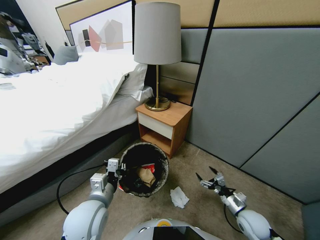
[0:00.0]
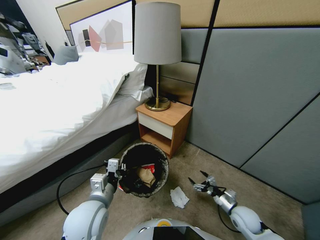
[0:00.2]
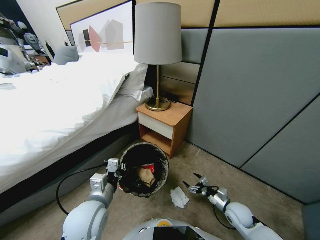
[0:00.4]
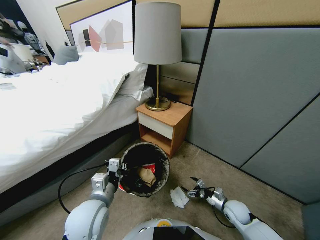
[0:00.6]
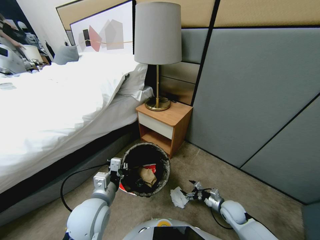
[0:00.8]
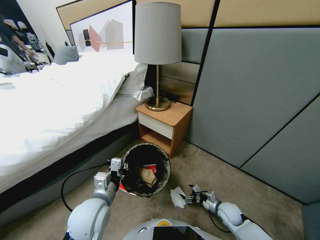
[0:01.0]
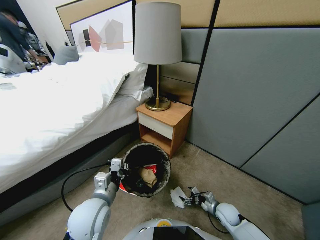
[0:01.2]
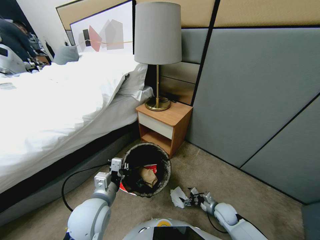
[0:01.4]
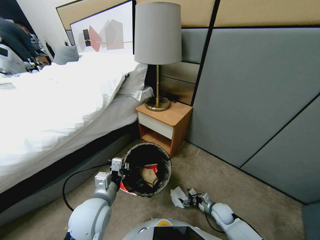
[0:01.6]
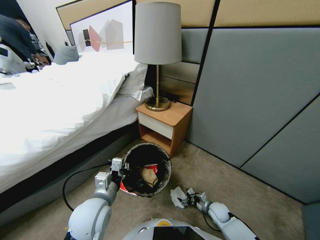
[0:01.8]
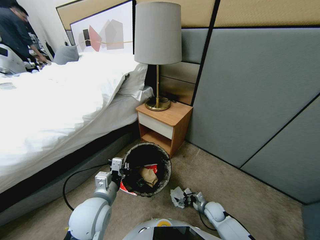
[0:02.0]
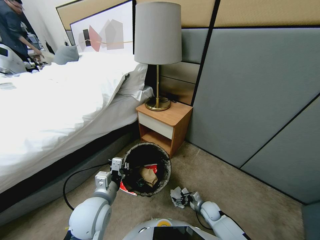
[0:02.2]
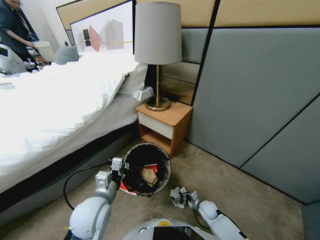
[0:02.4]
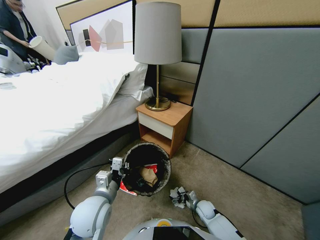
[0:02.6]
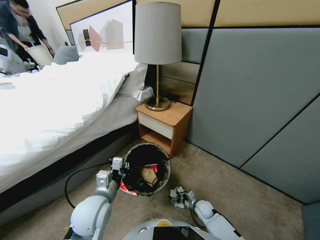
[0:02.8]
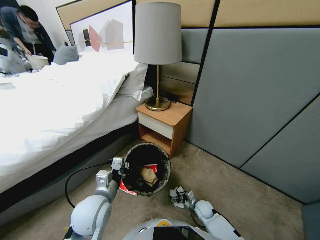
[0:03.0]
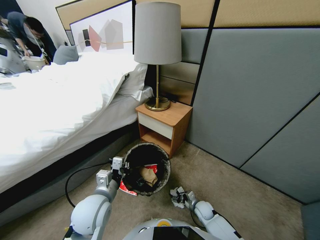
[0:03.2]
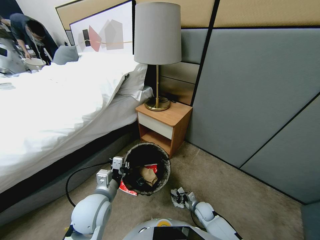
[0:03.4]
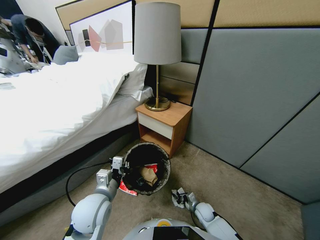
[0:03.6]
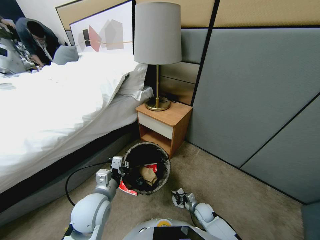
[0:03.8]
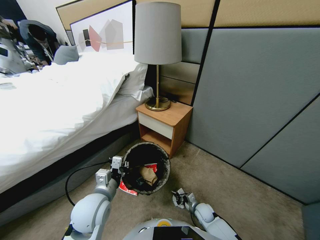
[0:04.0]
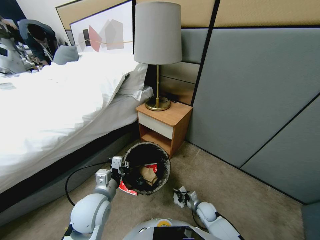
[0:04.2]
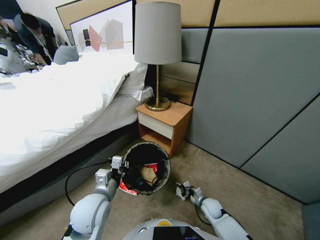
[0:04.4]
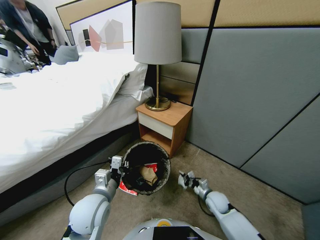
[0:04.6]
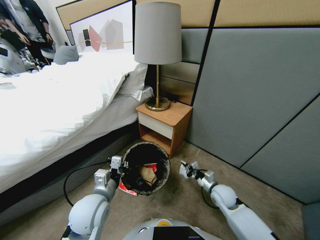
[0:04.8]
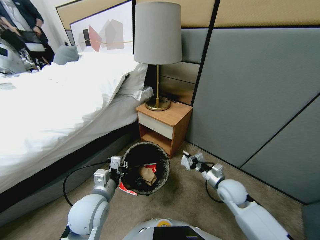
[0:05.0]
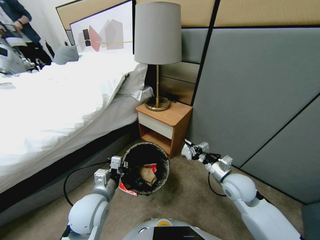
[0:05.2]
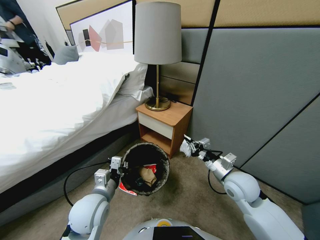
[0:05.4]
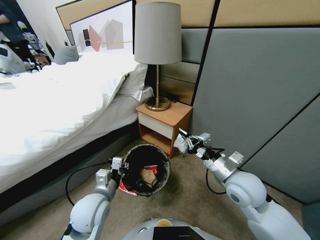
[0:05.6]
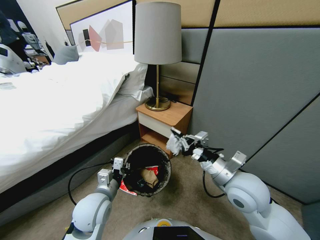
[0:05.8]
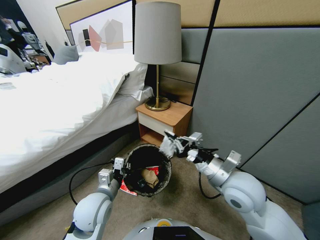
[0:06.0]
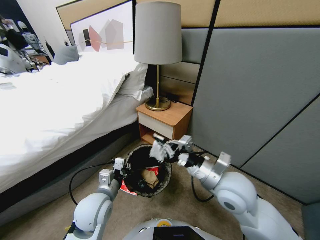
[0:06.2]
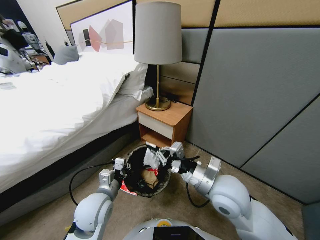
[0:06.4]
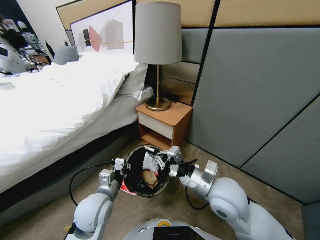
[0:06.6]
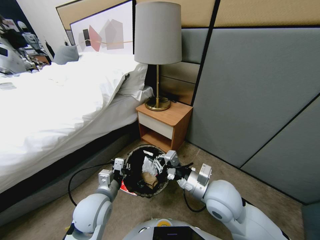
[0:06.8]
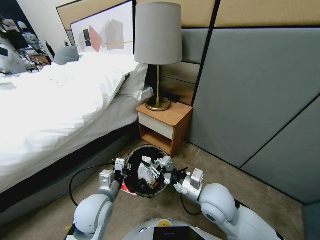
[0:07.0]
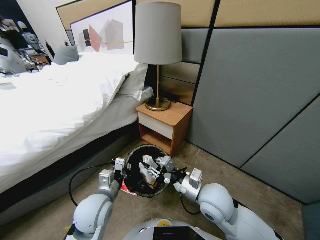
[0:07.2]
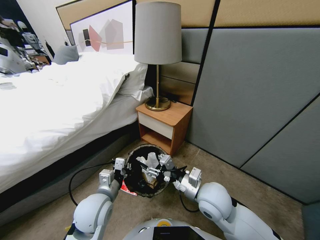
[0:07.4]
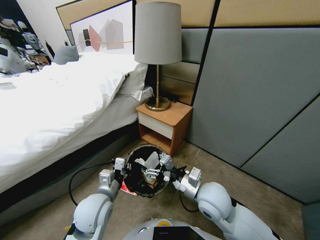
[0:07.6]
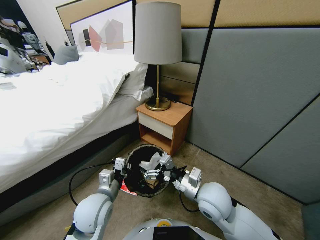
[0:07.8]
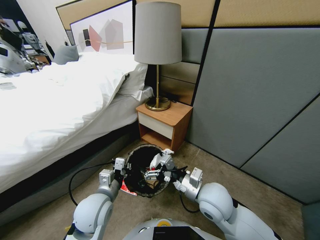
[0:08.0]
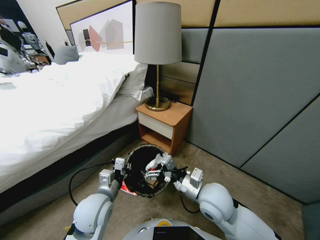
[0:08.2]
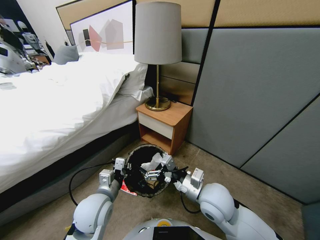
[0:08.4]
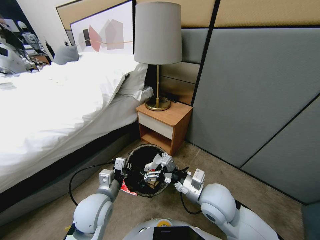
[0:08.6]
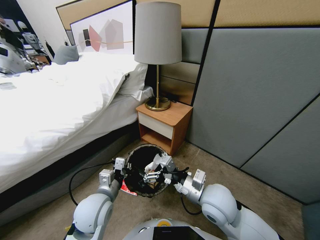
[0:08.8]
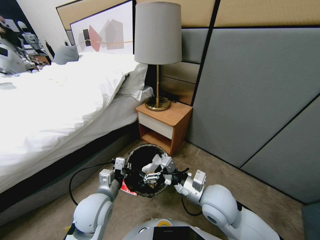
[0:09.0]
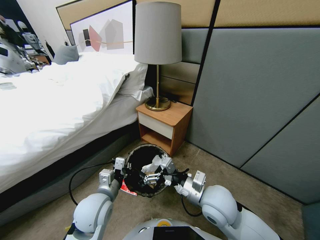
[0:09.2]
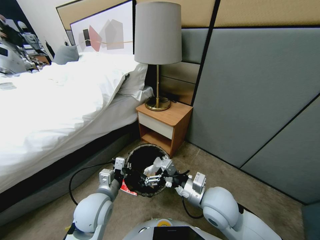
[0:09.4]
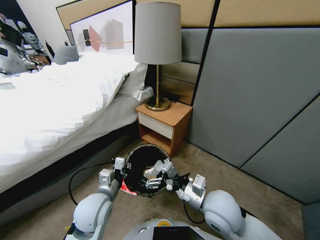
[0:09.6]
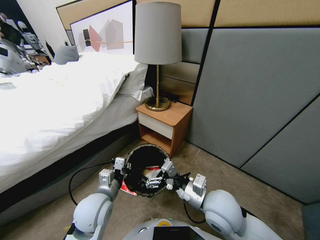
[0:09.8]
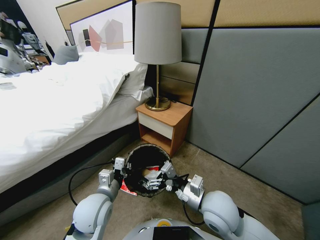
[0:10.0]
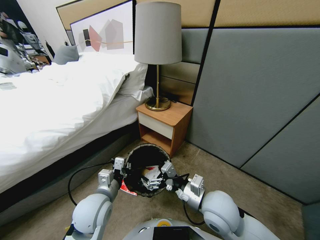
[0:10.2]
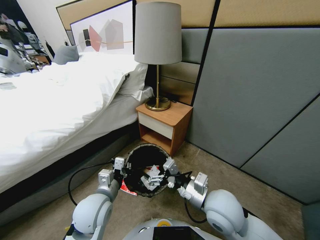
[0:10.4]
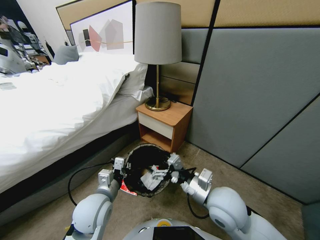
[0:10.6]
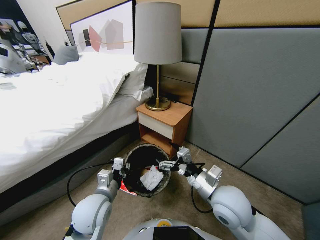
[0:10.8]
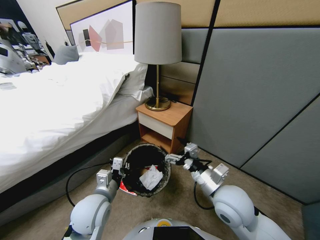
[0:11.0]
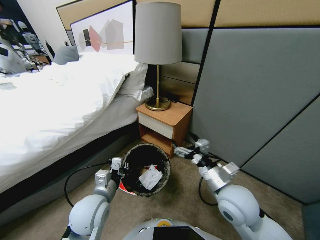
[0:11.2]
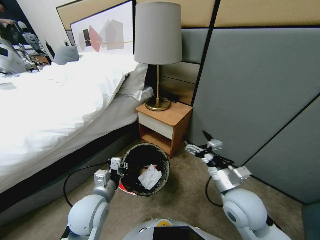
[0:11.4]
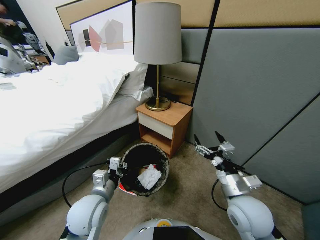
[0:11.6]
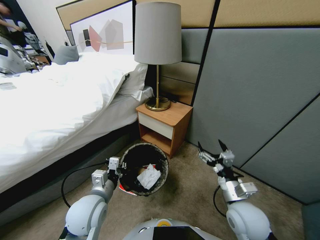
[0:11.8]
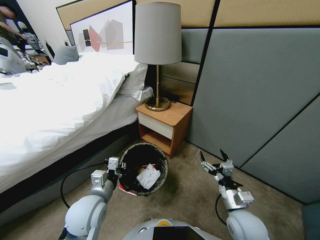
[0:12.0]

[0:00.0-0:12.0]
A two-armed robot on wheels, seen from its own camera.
Task of the whole recording: Pick up the trash bin, then pick up the garbage from the floor and place it into the trash bin.
0:00.0 to 0:01.6: The right gripper shifts approximately 10 cm downward.
0:01.6 to 0:03.0: The right gripper shifts some 5 cm to the left.
0:03.0 to 0:04.4: The right gripper heads upward, covering roughly 10 cm, and closes its fingers.
0:04.4 to 0:06.0: The right gripper shifts roughly 30 cm upward.
0:06.0 to 0:07.6: The right gripper goes approximately 10 cm downward and to the left, and opens its fingers.
0:07.6 to 0:10.4: There are only small adjustments of the grippers.
0:10.4 to 0:12.0: The right gripper moves downward and to the right, about 15 cm.

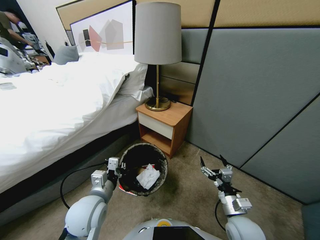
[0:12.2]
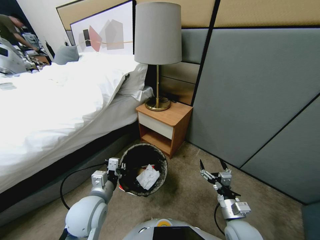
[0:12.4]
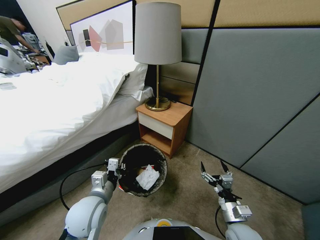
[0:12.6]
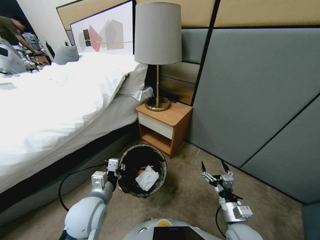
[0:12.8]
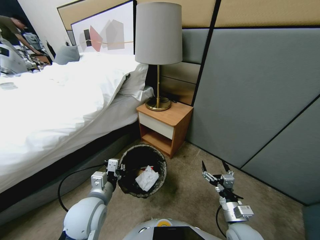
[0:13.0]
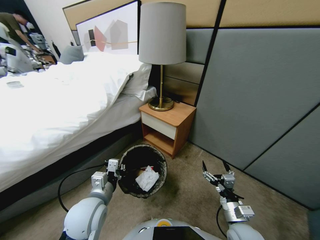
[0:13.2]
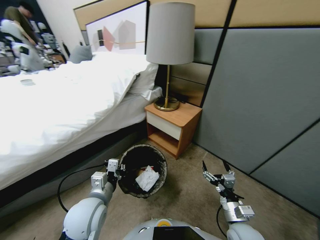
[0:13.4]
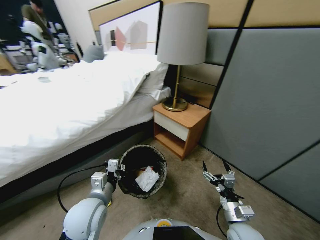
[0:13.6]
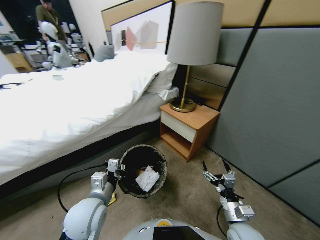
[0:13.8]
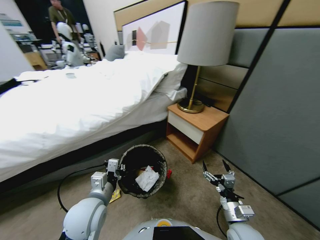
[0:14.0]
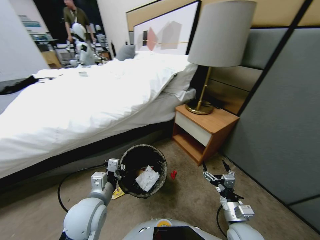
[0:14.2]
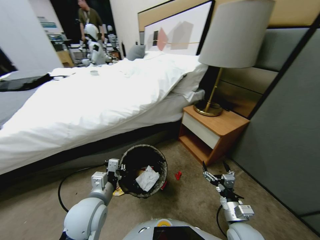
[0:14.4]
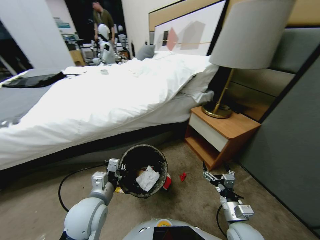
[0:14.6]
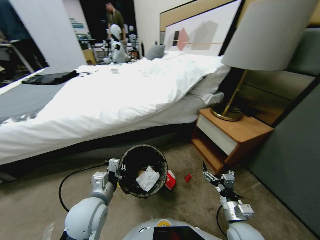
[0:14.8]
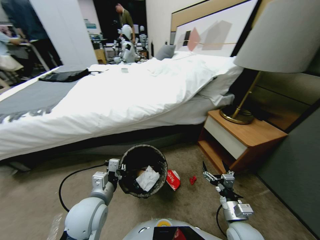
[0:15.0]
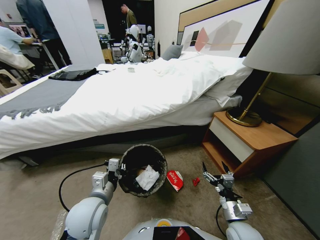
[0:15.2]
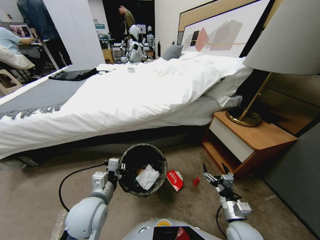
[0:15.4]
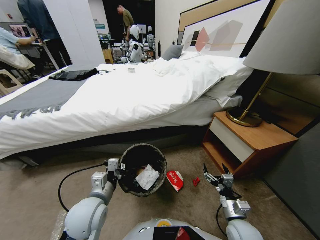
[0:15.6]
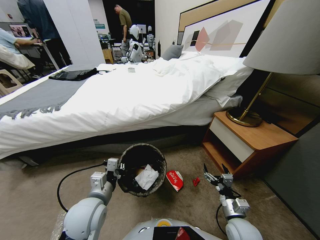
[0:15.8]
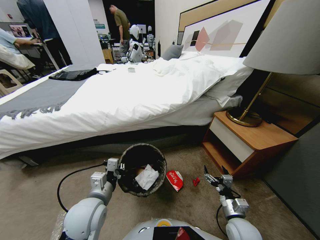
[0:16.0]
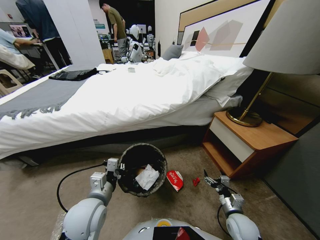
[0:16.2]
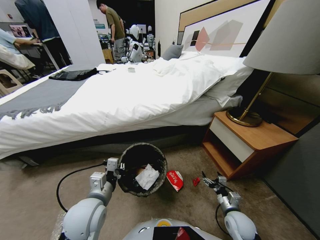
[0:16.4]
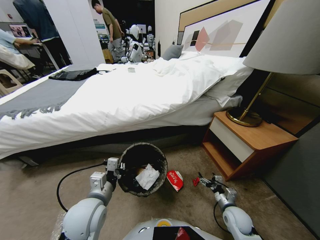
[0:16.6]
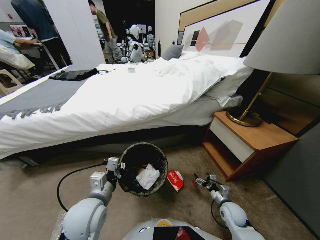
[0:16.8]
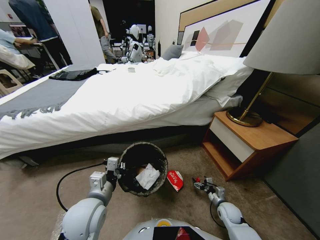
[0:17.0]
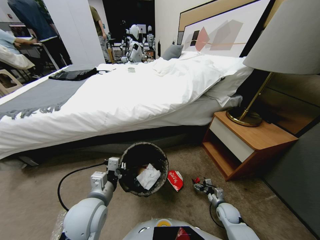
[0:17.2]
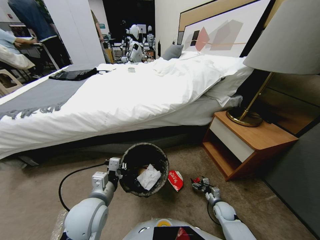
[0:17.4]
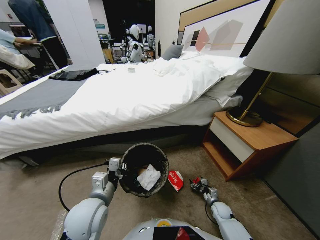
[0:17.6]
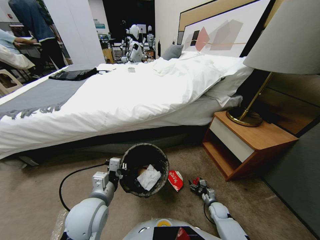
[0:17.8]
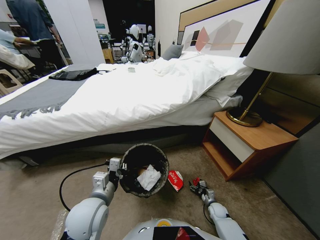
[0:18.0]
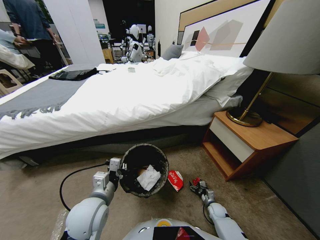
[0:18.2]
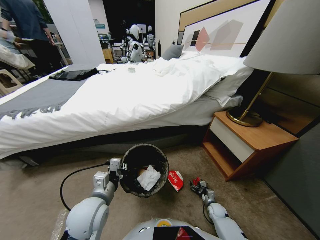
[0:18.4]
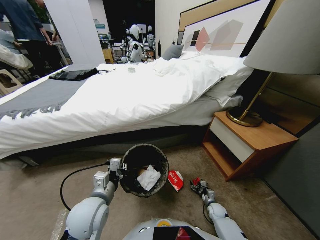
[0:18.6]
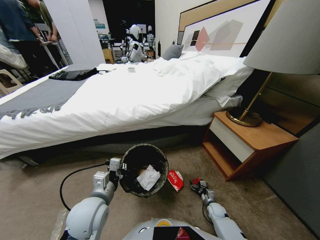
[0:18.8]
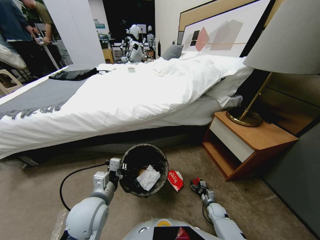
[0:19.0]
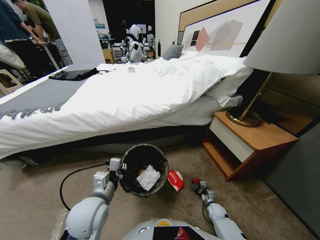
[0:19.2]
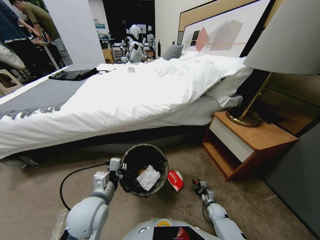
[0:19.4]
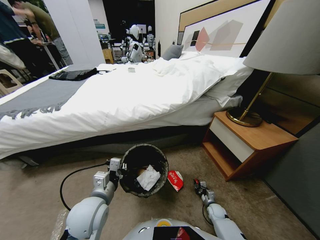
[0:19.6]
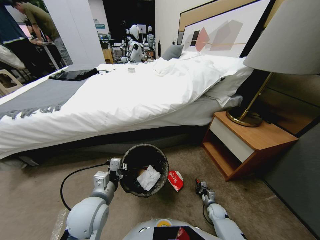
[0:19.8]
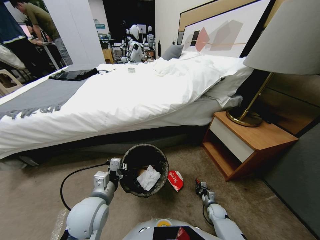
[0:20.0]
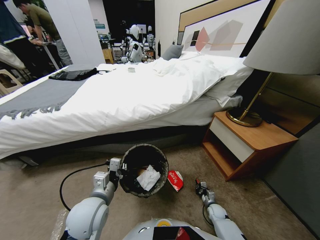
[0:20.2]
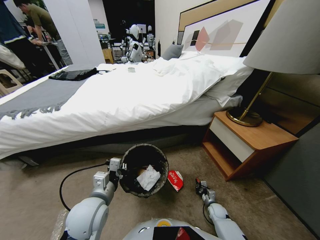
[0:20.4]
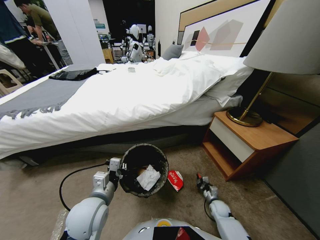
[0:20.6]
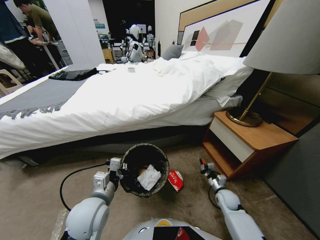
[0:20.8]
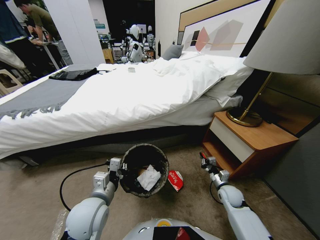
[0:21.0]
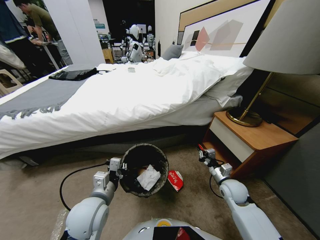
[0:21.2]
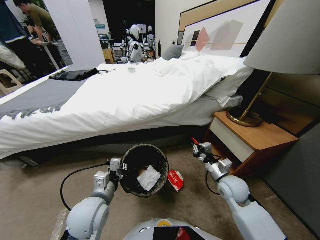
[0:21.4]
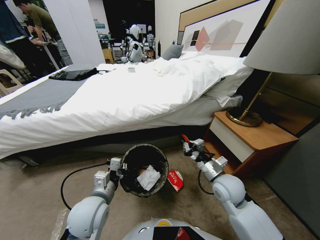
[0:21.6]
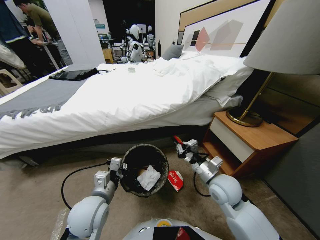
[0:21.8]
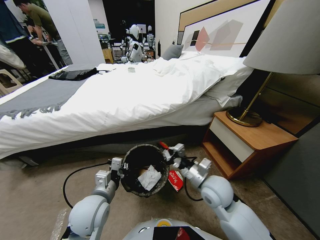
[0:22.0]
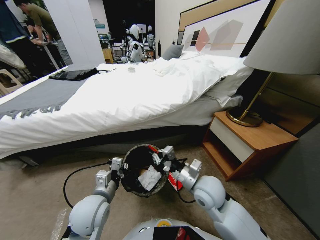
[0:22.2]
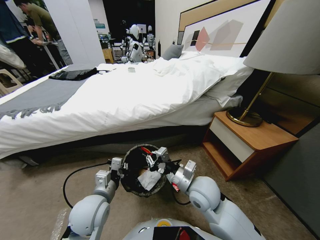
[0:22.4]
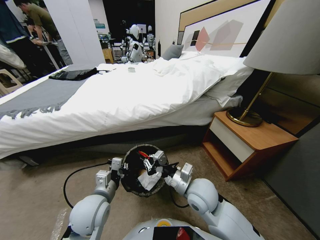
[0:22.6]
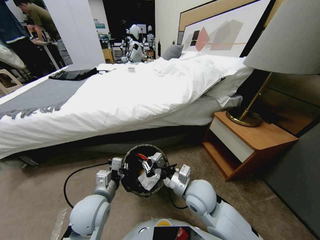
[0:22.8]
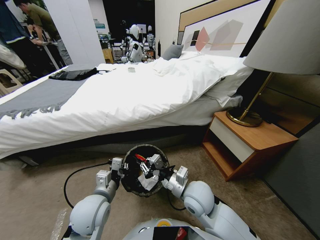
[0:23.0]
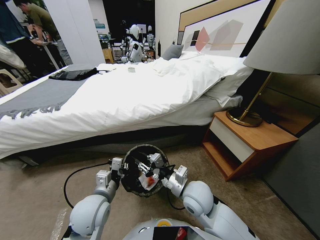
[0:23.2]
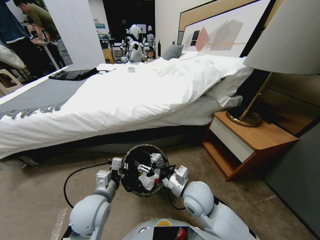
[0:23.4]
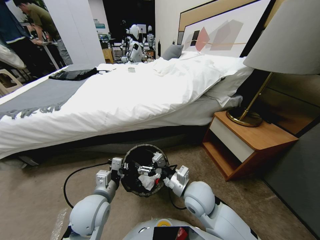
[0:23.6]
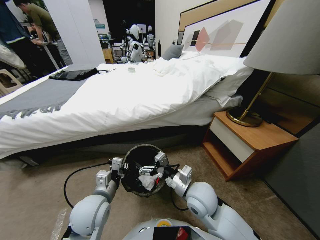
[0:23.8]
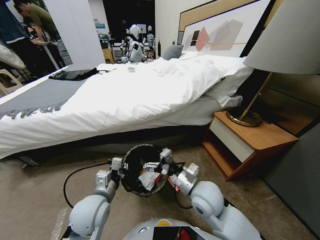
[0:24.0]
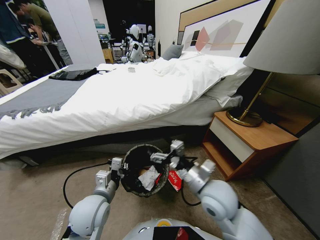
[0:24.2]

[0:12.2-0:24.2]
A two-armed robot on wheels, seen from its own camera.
Task of the whole recording: Pick up the trash bin, then pick up the garbage from the floor and place it into the trash bin.
0:15.2 to 0:16.6: The right gripper moves downward and forward, approximately 10 cm.
0:16.6 to 0:18.2: The right gripper is displaced downward by about 20 cm.
0:19.8 to 0:21.2: The right gripper moves upward, roughly 30 cm.
0:21.2 to 0:22.6: The right gripper travels to the left and upward by some 20 cm.
0:22.6 to 0:24.2: The right gripper is displaced upward by approximately 5 cm, and opens.
